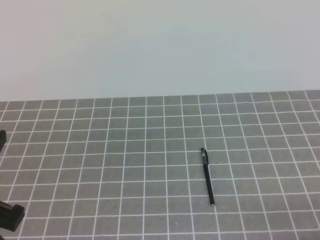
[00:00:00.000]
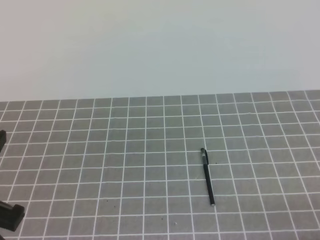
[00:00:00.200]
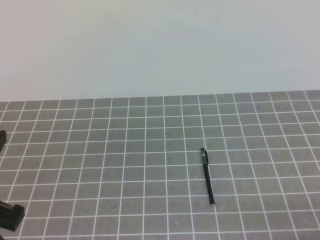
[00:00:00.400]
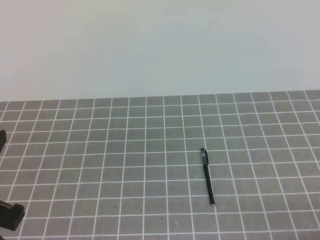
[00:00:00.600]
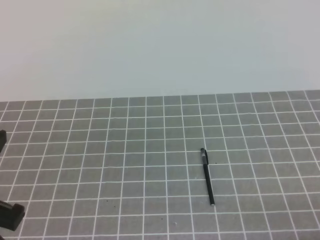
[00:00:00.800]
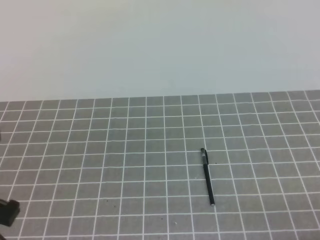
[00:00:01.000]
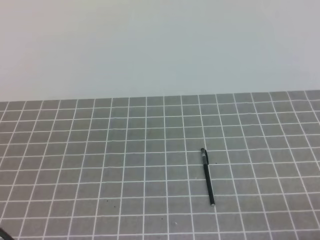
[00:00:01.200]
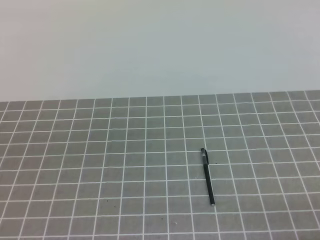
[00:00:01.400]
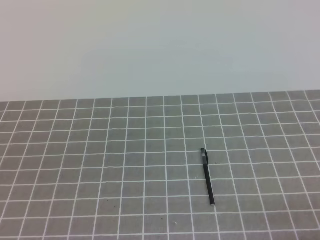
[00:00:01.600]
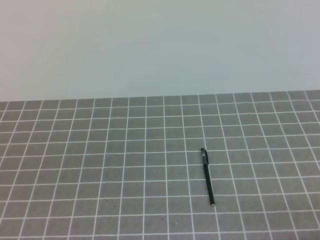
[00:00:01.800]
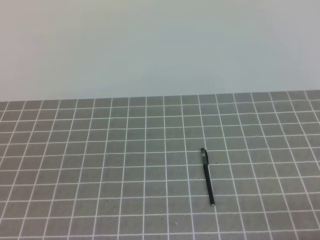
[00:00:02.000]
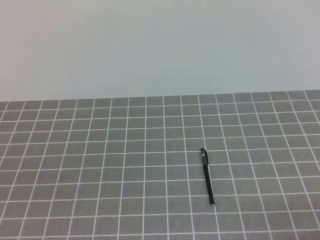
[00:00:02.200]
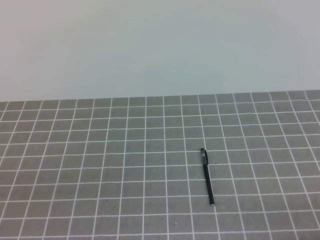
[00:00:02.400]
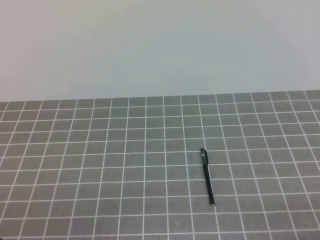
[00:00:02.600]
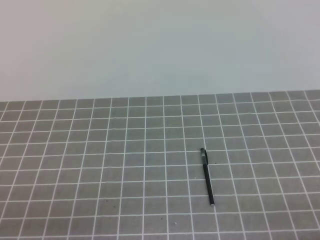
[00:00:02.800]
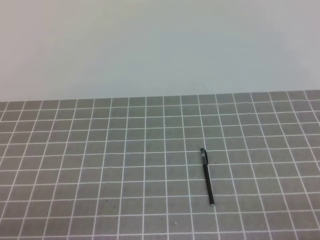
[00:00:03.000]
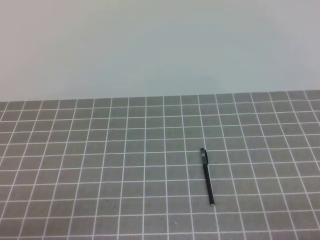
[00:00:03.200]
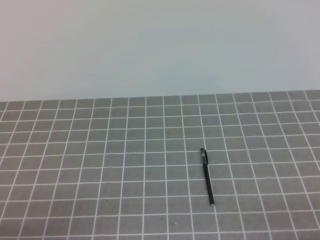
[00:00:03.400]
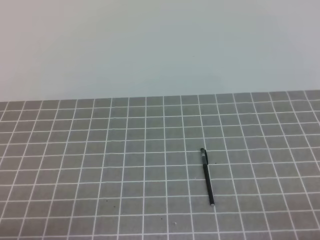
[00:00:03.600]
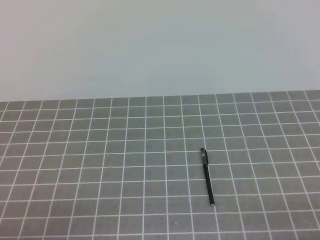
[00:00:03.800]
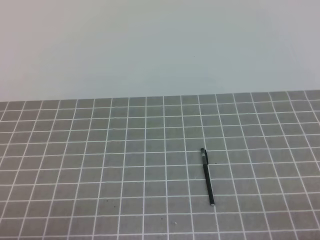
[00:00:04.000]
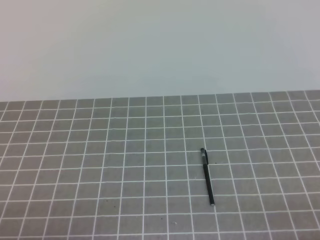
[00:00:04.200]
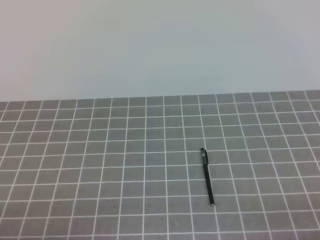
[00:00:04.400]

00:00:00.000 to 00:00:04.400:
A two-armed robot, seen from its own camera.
Task of the whole recording: on the grey tablecloth, hold the pen cap in one hand and the pen in the other, then cover the pen cap.
00:00:00.000 to 00:00:01.400: The left gripper moves approximately 5 cm.
